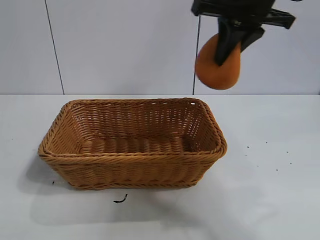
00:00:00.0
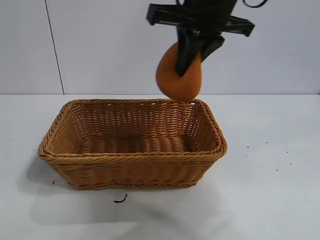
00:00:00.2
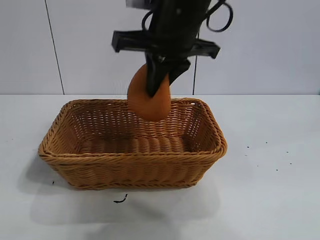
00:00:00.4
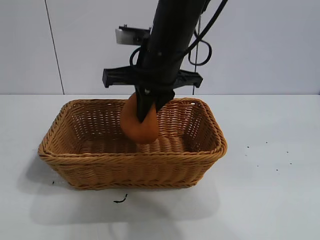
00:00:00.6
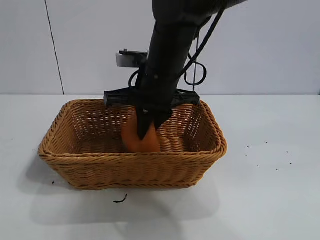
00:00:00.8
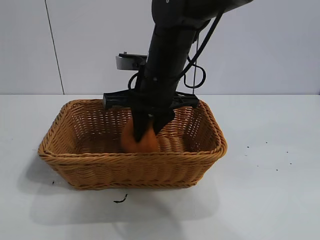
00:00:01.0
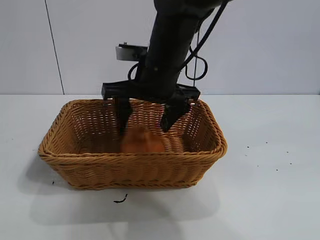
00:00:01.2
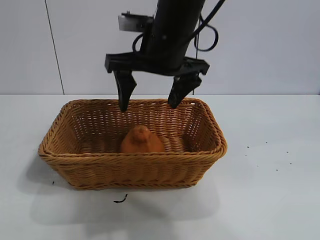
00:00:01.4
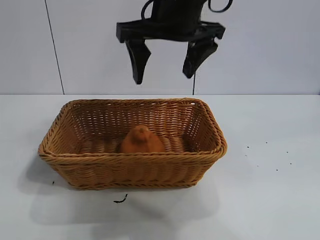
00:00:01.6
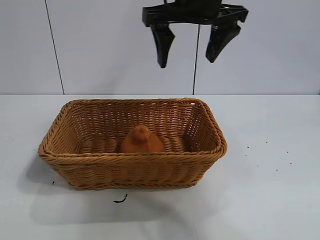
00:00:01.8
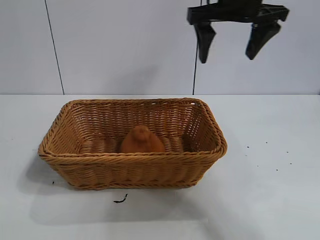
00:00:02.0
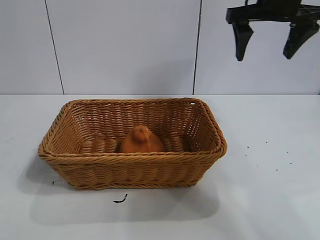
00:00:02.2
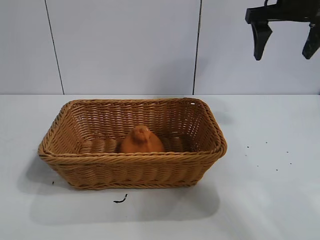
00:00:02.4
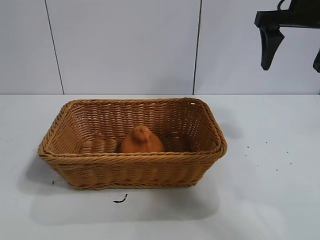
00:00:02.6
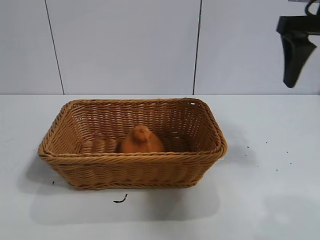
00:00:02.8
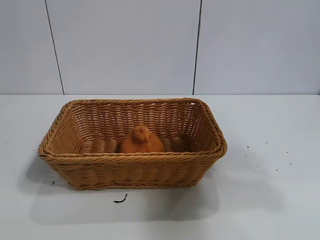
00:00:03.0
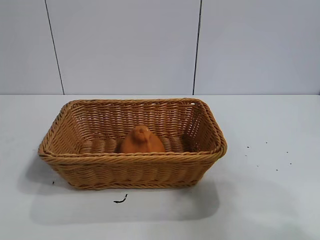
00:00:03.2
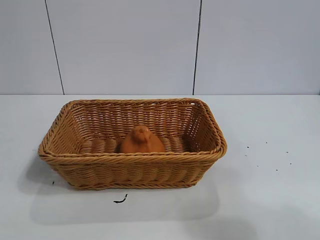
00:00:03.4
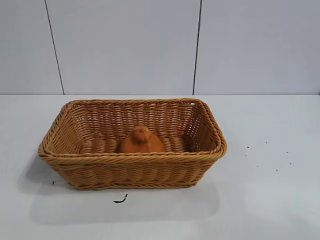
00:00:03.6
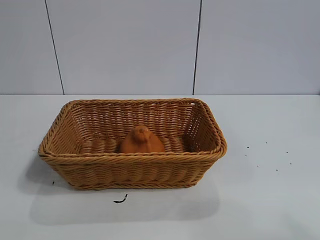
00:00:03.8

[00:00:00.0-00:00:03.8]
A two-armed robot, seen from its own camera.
Task of the whole recording: pick up the orange and put it into the basket.
Step, 00:00:00.0 to 00:00:01.2: Place the orange in the basket with right gripper.

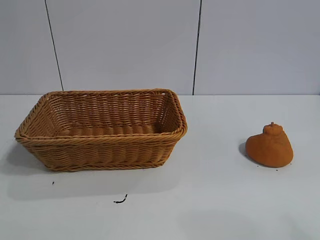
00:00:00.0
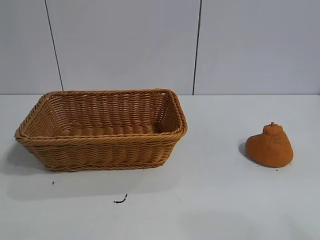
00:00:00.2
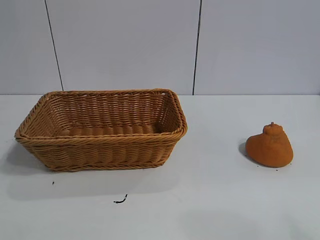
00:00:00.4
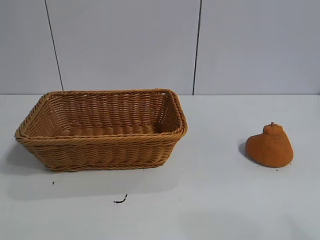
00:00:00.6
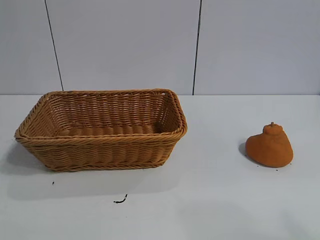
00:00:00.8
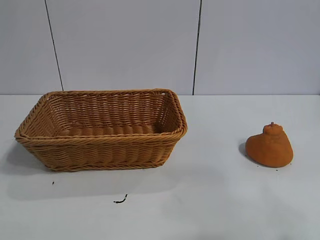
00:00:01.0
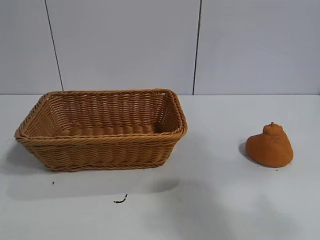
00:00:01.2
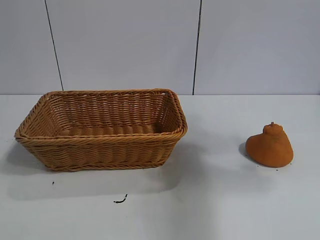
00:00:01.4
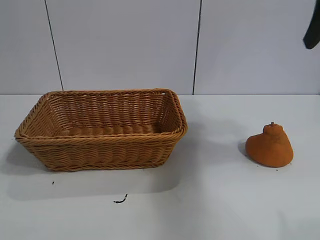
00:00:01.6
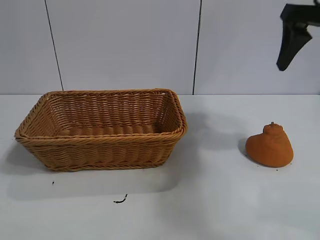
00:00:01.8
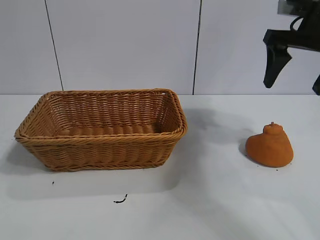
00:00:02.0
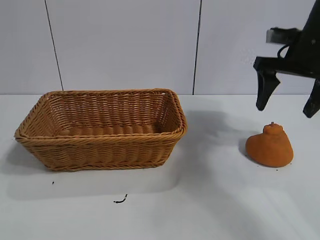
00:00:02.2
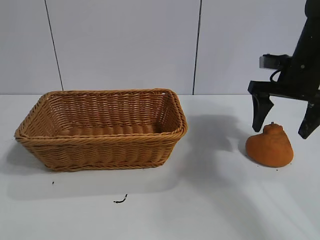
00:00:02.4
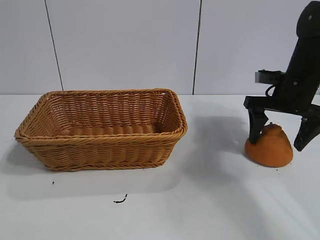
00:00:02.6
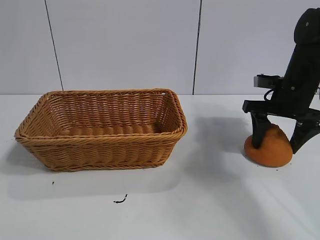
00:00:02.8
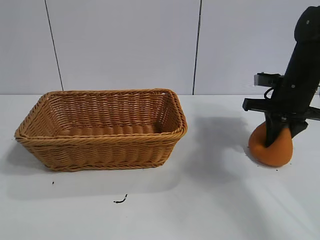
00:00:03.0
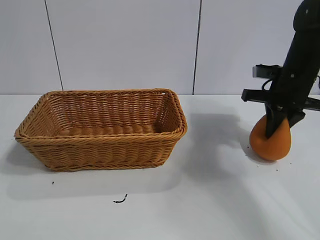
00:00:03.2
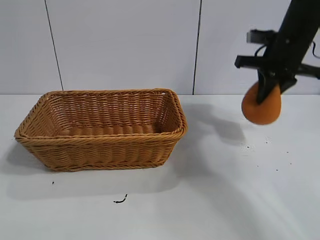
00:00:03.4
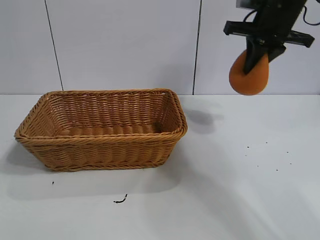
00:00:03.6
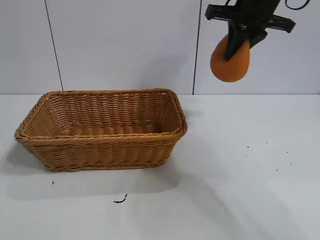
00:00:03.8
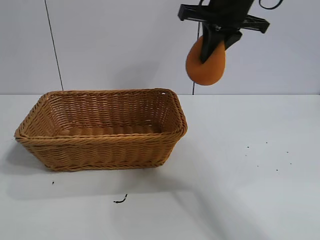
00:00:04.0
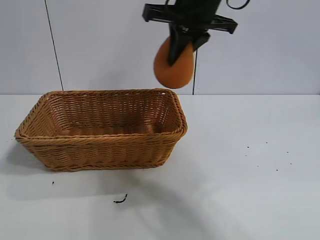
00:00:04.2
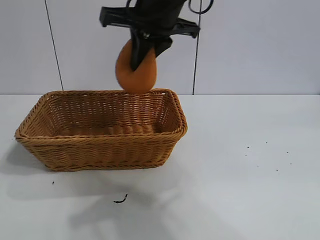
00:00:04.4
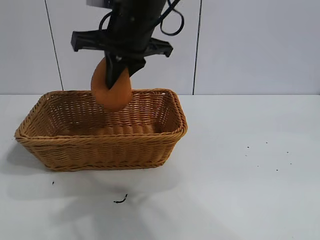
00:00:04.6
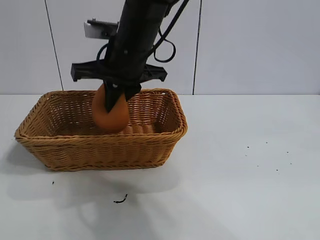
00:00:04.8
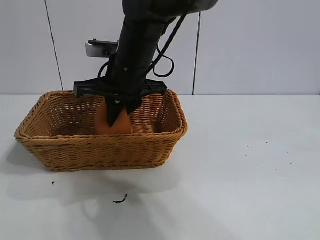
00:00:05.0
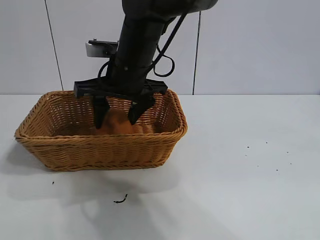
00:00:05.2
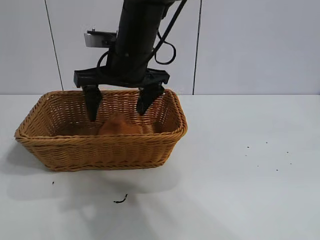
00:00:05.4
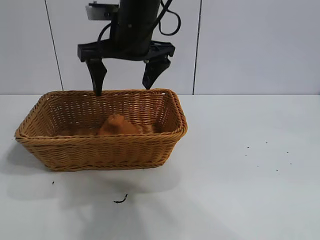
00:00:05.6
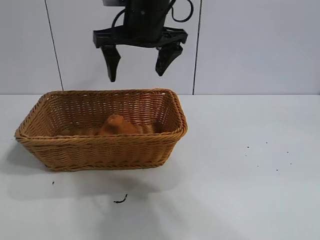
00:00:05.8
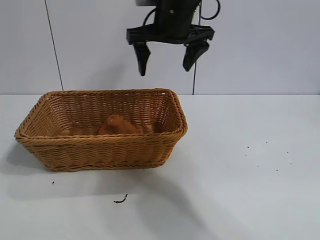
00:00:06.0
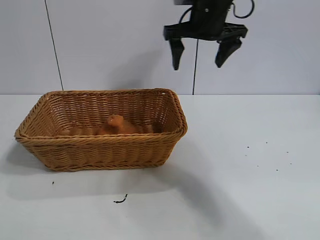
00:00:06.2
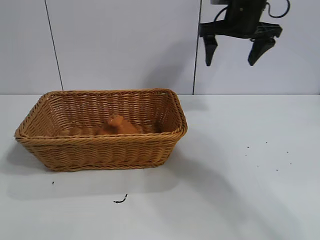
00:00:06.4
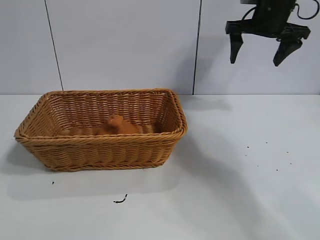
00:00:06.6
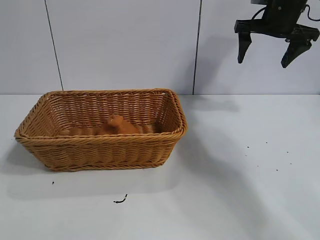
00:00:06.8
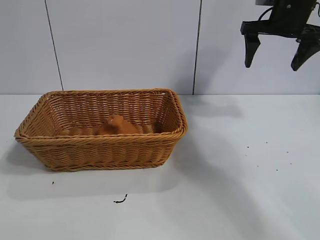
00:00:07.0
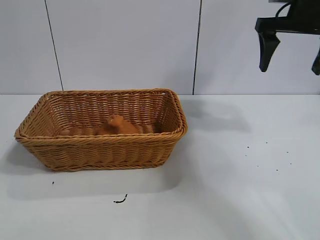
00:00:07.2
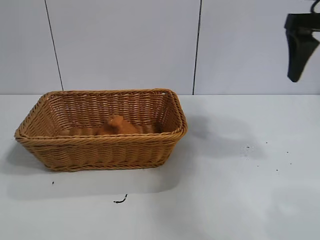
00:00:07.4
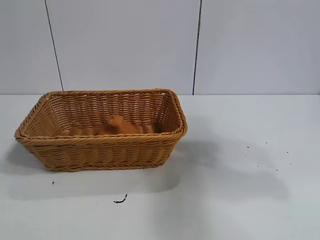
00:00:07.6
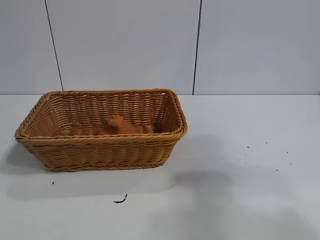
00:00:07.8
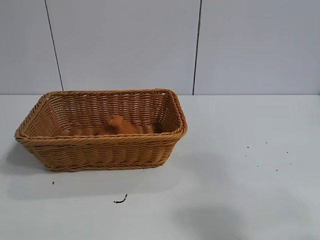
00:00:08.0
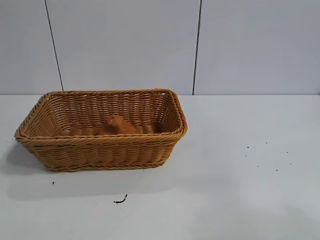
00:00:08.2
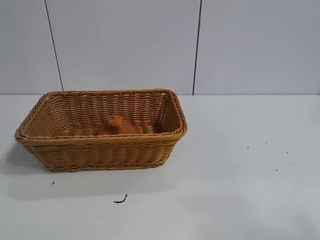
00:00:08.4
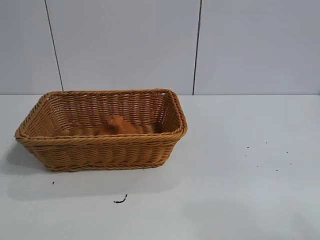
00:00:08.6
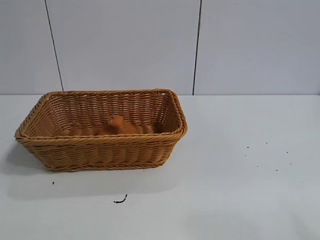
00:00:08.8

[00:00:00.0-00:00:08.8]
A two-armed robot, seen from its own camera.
Task of the whole recording: pick up the orange and put it into the basket.
Step, 00:00:00.6 to 00:00:03.0: Grasp the orange with right gripper.
Step, 00:00:03.2 to 00:00:05.4: Place the orange in the basket with right gripper.
